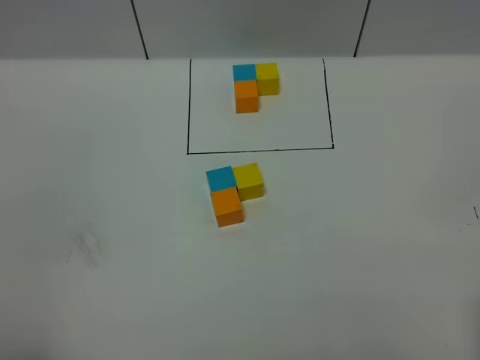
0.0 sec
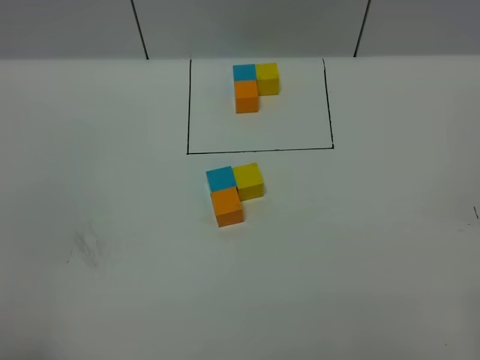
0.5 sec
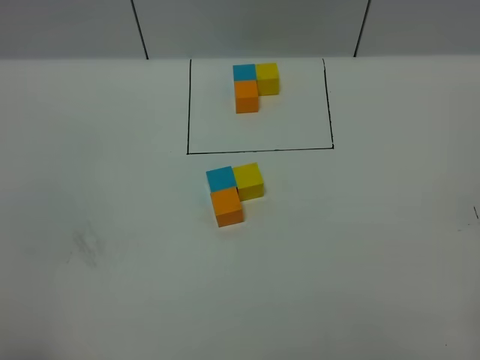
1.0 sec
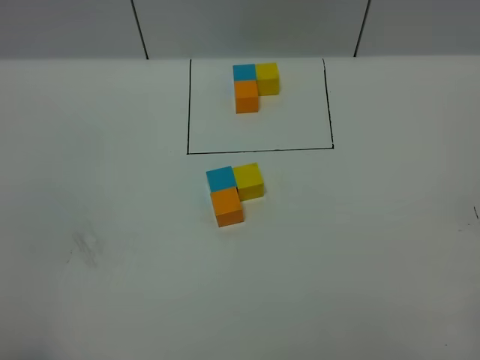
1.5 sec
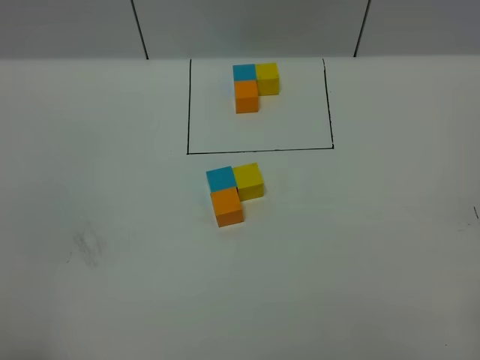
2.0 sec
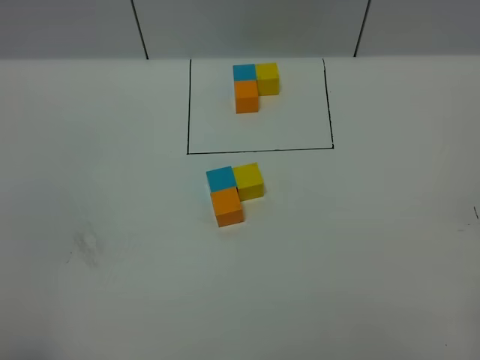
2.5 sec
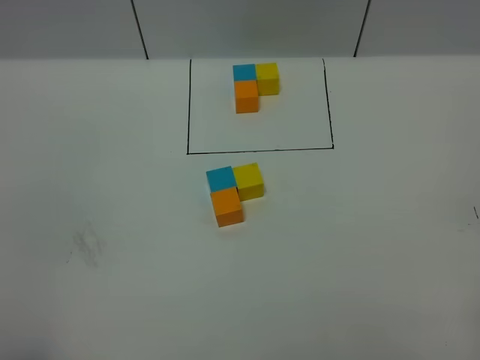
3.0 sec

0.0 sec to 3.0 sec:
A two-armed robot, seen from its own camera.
Task of the whole recording: According to the building block template in front, assemble the scattered blocks together.
1.5 sec to 3.0 sec: Neither gripper changes place.
